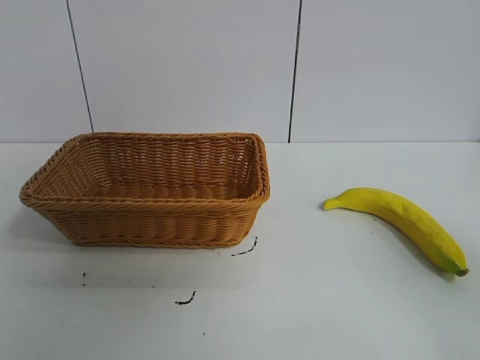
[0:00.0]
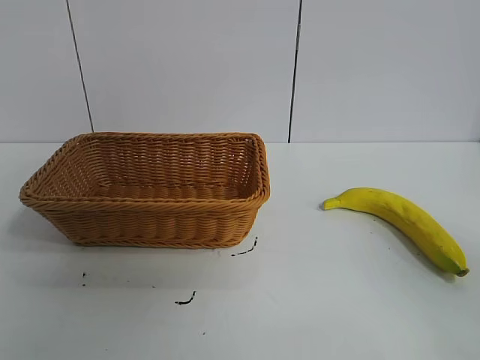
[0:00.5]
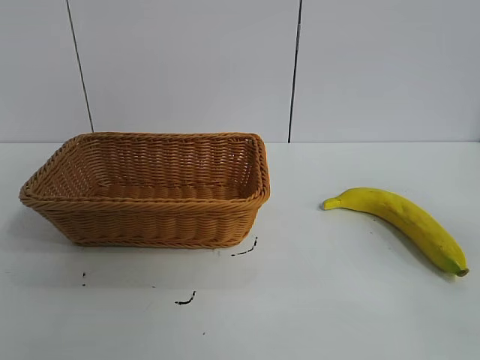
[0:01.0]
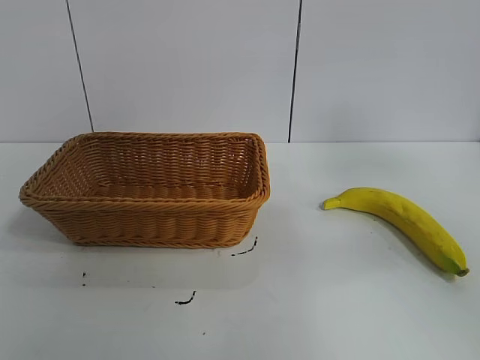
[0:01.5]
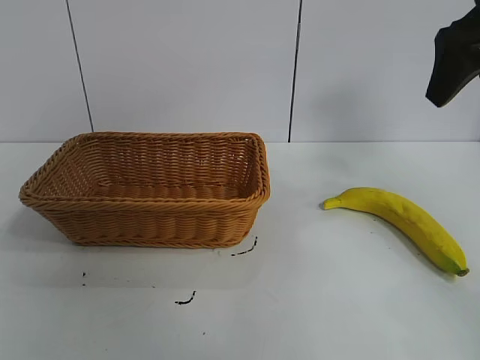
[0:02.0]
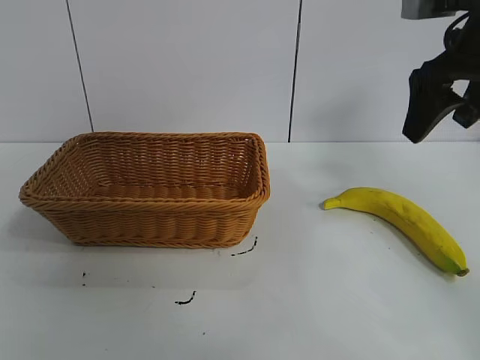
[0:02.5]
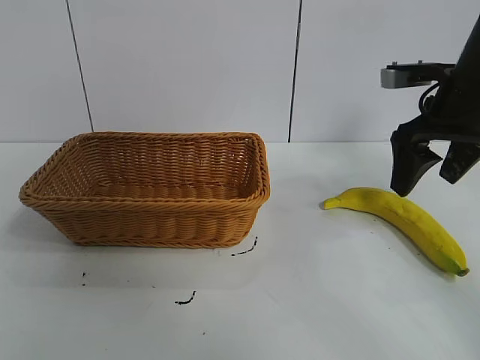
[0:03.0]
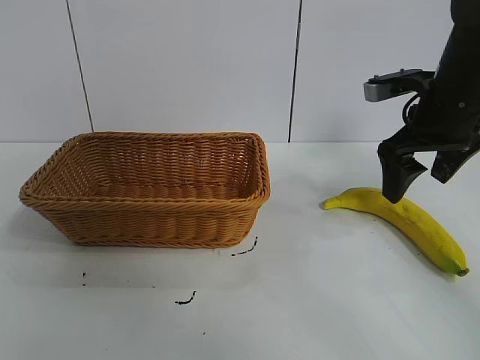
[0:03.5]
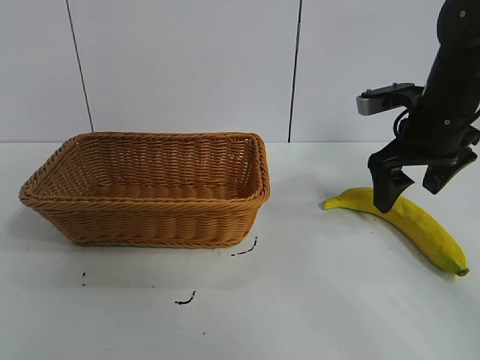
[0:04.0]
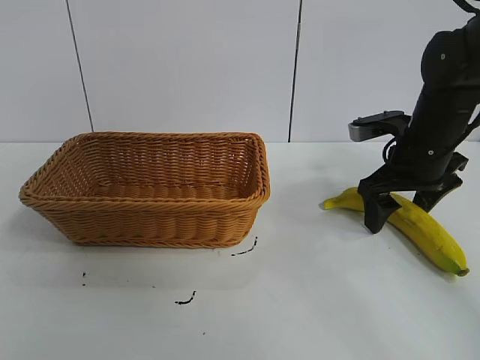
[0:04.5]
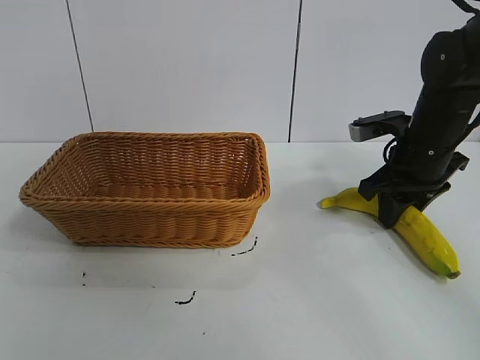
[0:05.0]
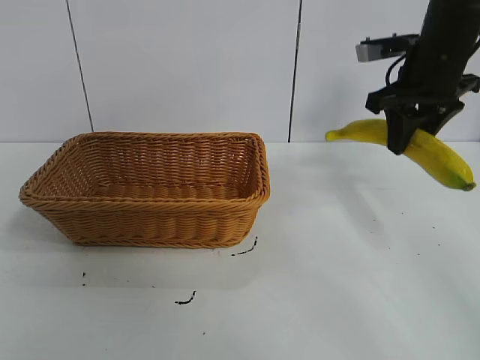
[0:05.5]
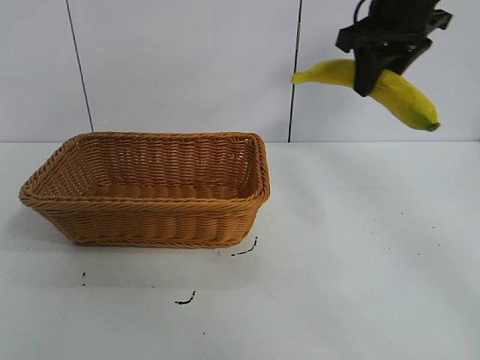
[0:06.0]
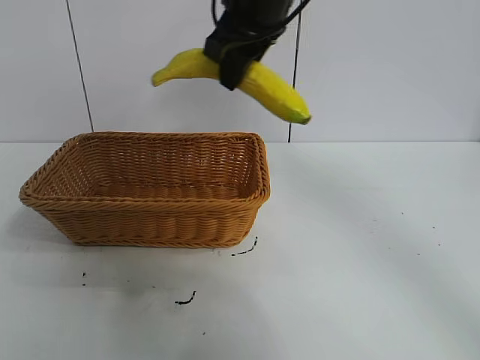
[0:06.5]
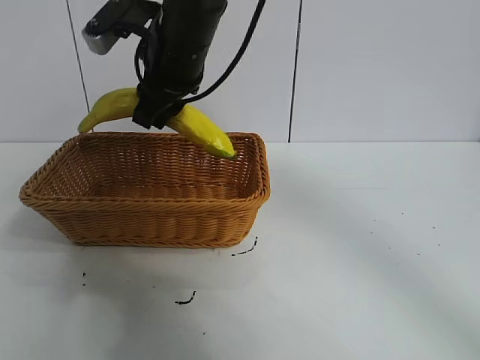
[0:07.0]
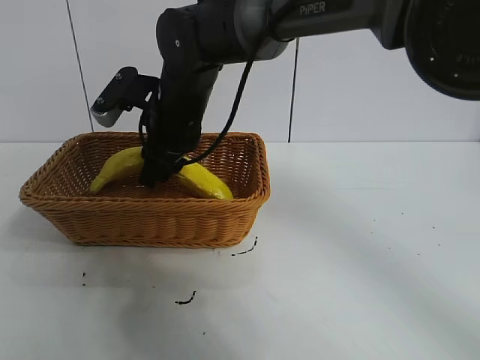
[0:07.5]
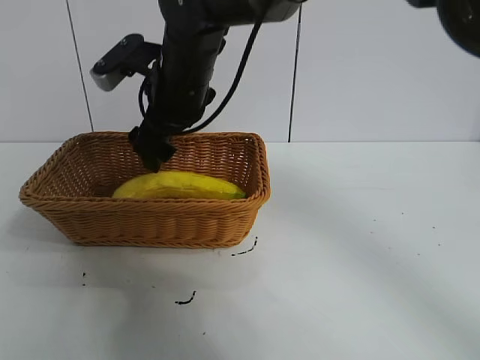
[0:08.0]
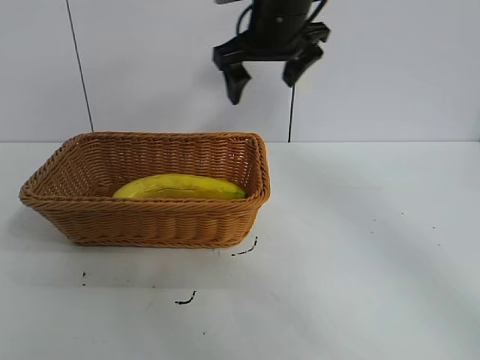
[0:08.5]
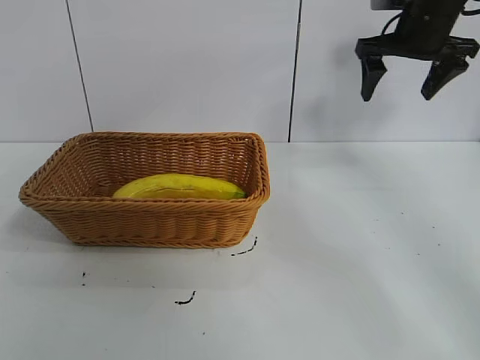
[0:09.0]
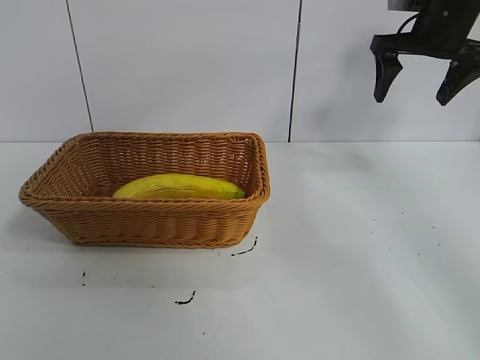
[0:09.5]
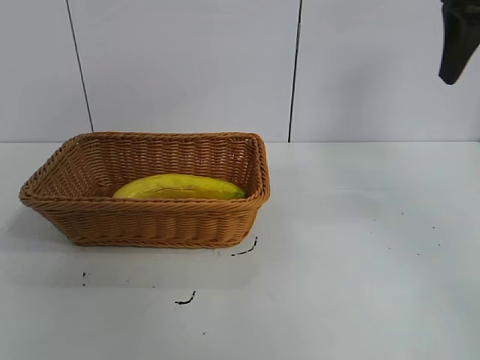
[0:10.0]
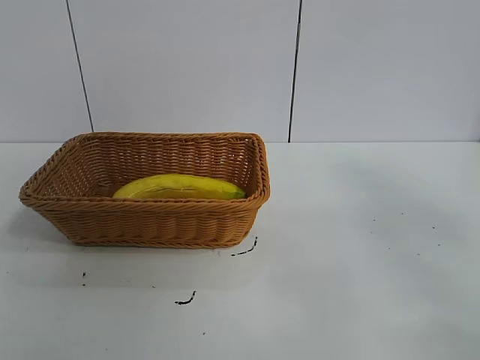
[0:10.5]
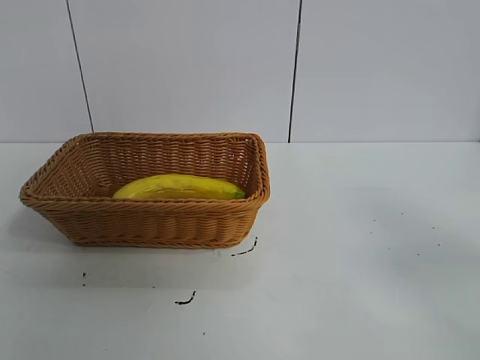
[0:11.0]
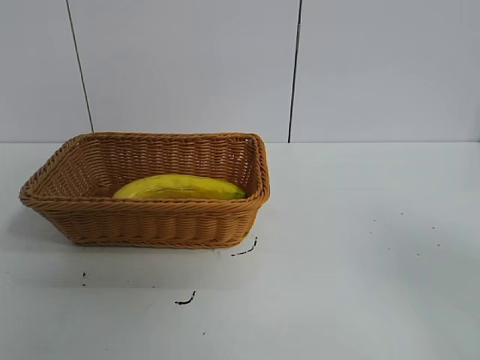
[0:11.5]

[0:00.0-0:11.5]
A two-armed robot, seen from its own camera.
Task of the whole recording: pick up the banana and put it into the basket.
Step, 0:01.0 to 0:04.5: Grasp the banana with right gripper.
Step, 0:05.5 to 0:08.0: Place the banana in the basket with right gripper.
